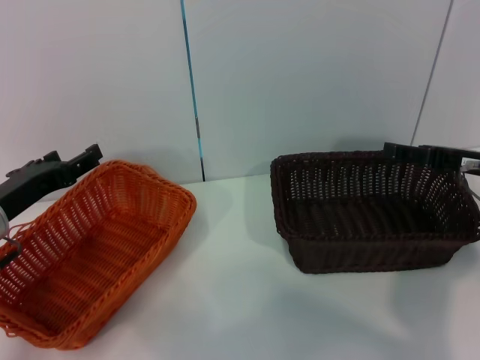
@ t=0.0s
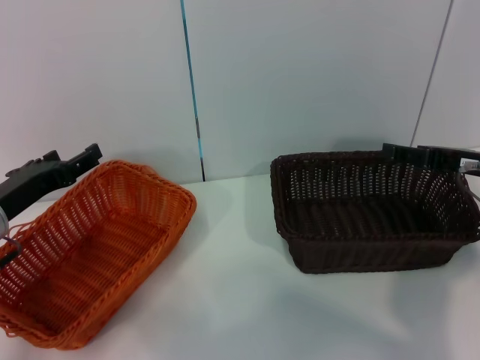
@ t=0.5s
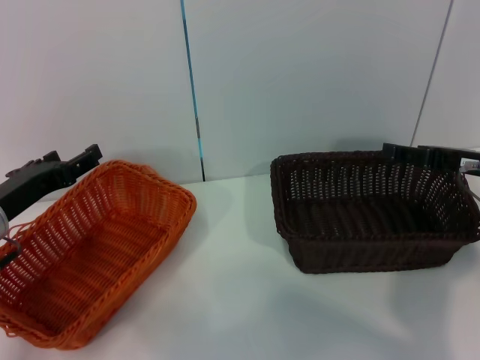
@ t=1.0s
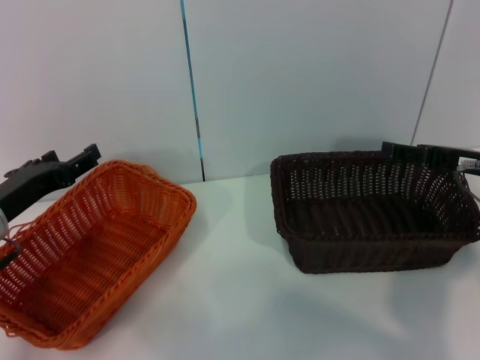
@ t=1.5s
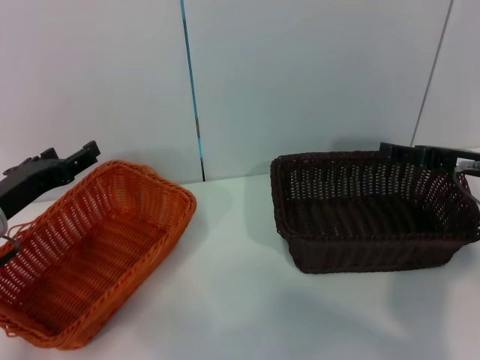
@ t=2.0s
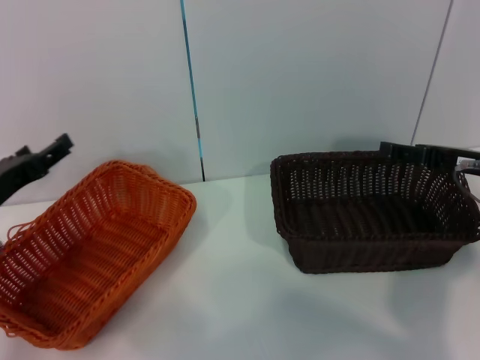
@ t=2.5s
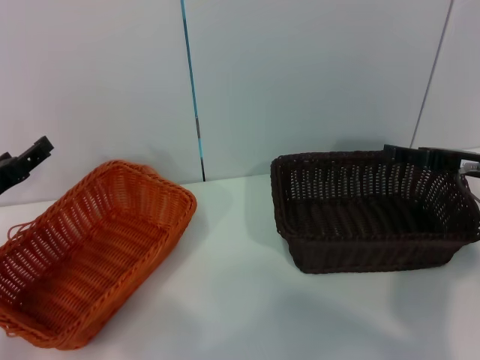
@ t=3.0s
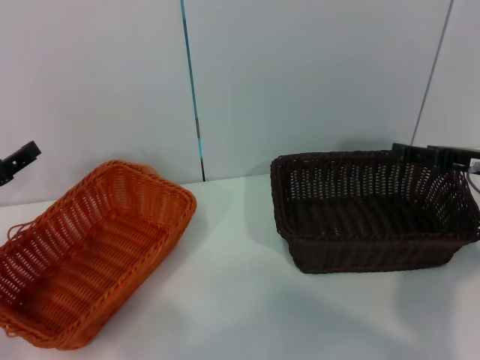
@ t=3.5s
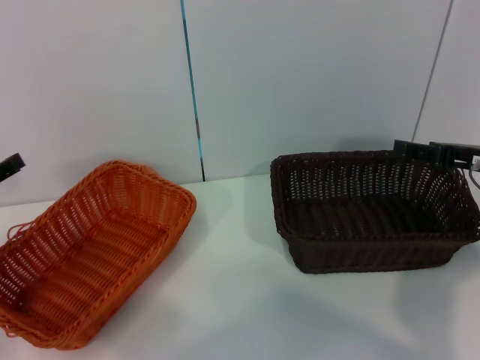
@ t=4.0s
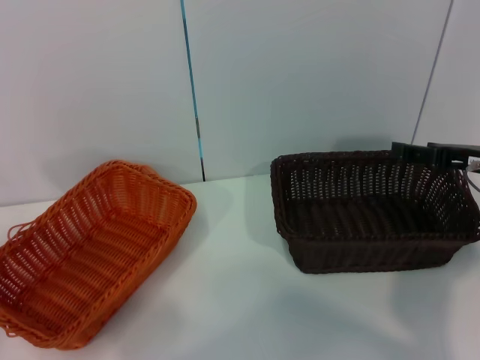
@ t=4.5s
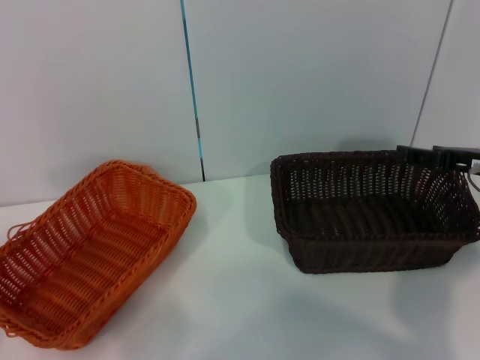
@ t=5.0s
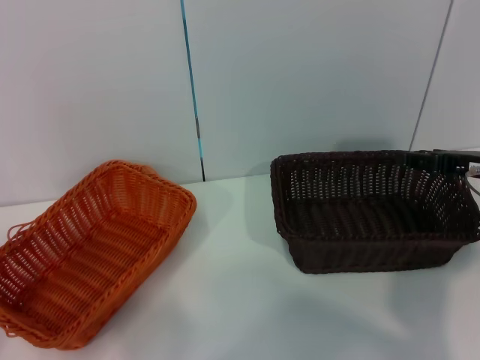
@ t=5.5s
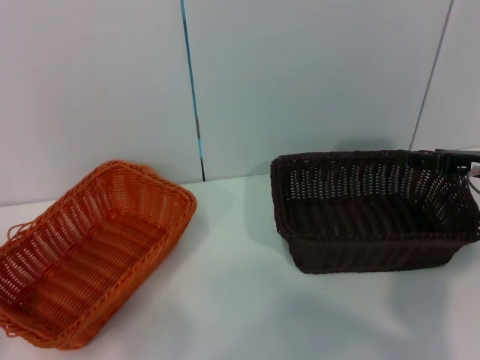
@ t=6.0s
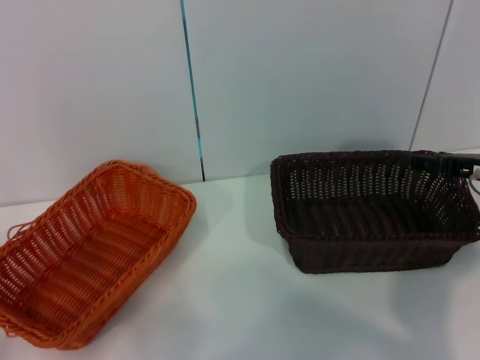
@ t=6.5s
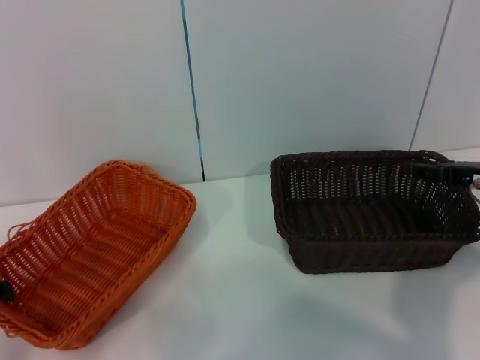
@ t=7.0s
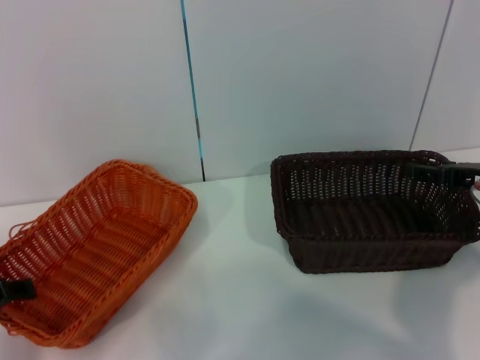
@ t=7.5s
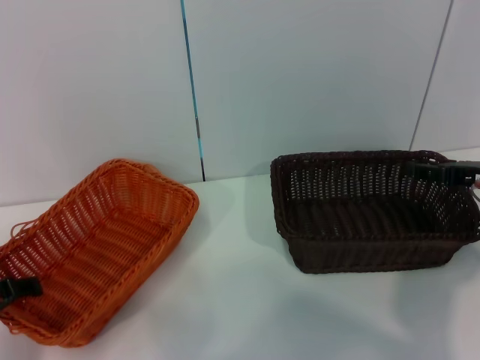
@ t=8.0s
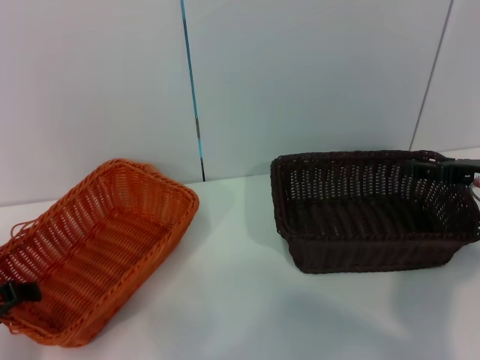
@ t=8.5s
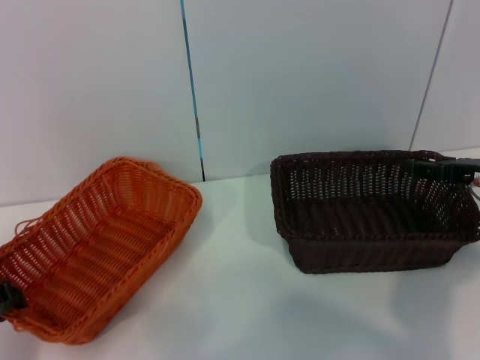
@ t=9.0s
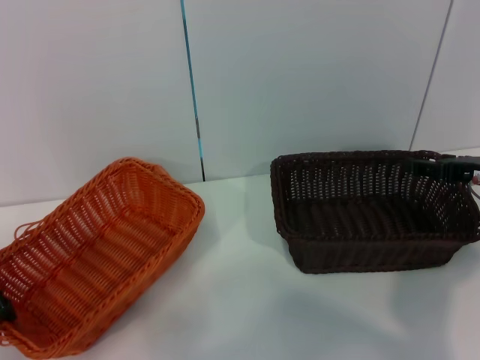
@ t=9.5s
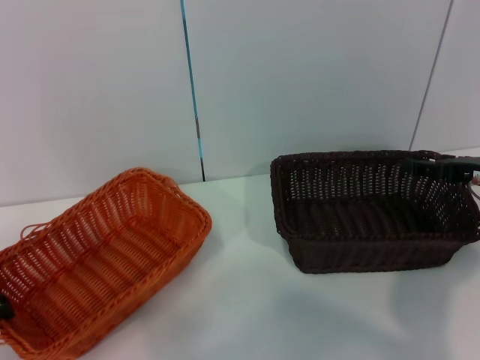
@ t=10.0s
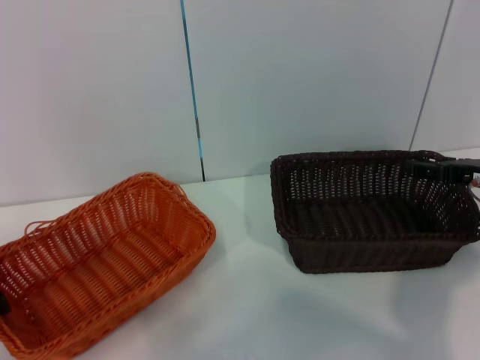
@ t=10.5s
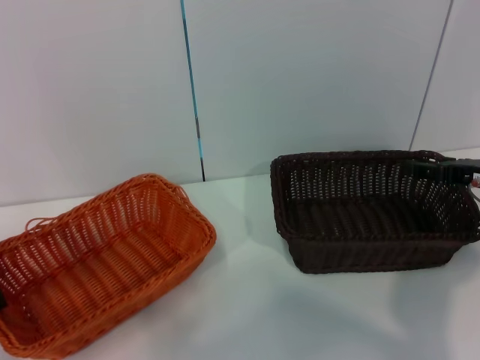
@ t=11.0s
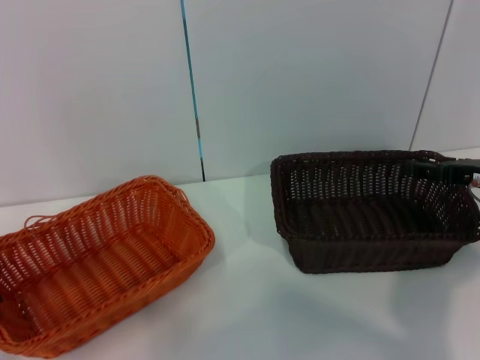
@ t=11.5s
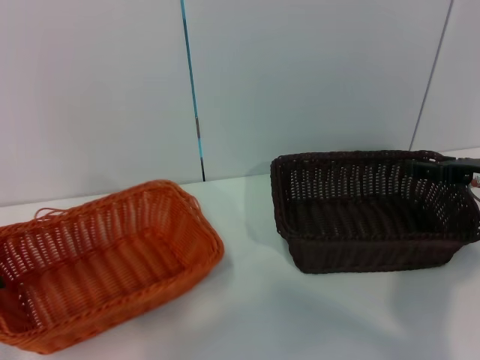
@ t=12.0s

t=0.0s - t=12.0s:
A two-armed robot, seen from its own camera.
t=0.0s - t=2.0s: Neither gripper changes place.
t=2.0s - t=4.0s: The left gripper moves to the left, approximately 5 cm.
t=6.0s - t=8.0s: The left gripper shifts about 5 cm to the right.
t=8.0s - t=10.0s: The left gripper closes.
t=10.0s - t=12.0s: There are only small adjustments of the grippers.

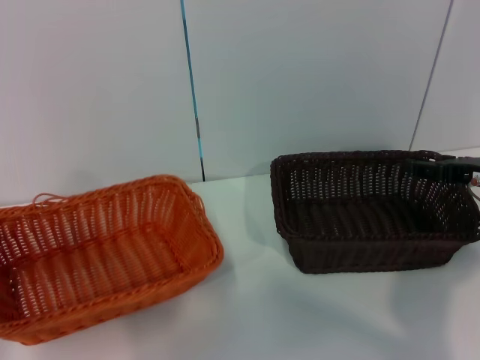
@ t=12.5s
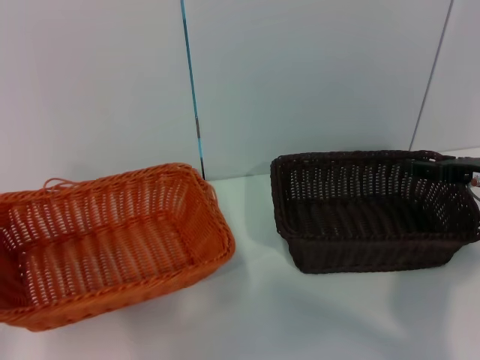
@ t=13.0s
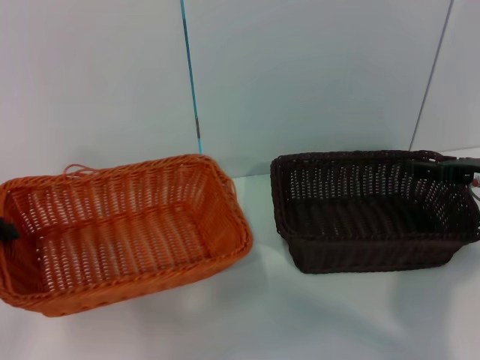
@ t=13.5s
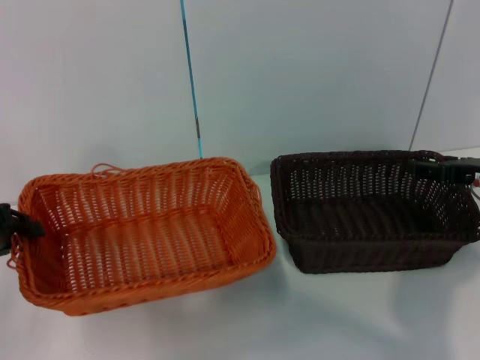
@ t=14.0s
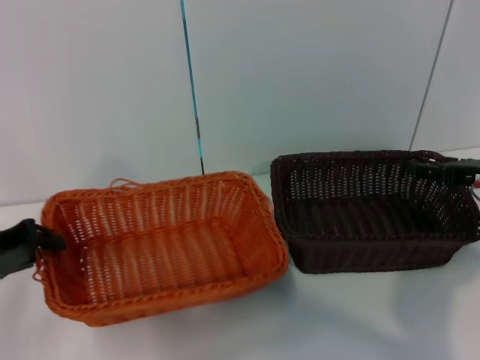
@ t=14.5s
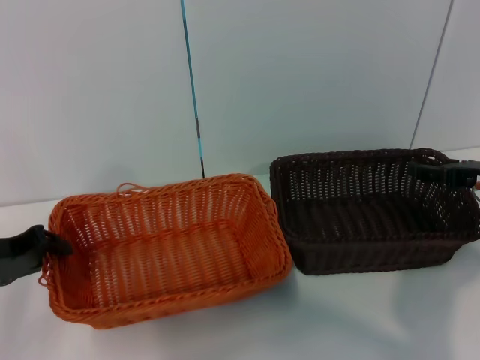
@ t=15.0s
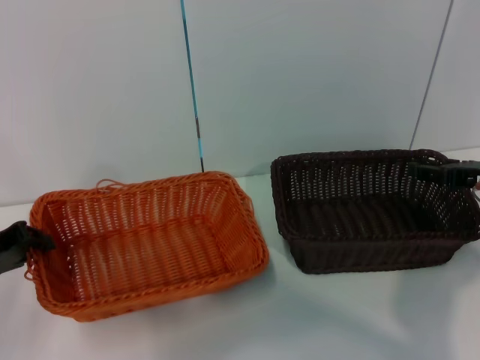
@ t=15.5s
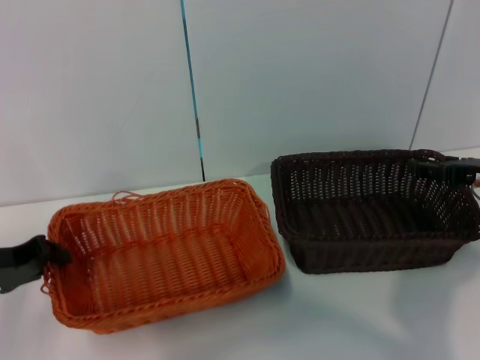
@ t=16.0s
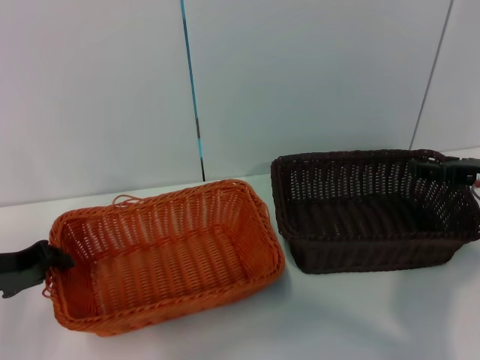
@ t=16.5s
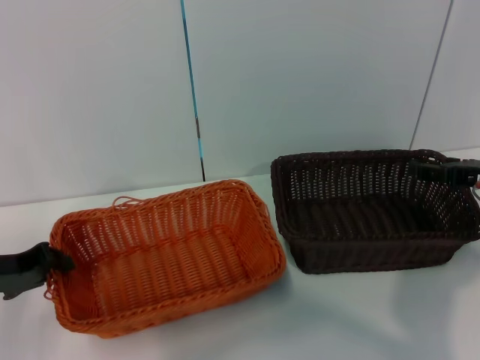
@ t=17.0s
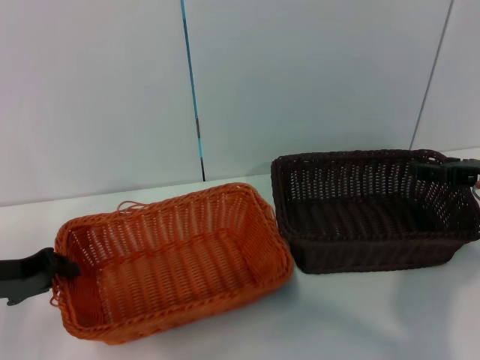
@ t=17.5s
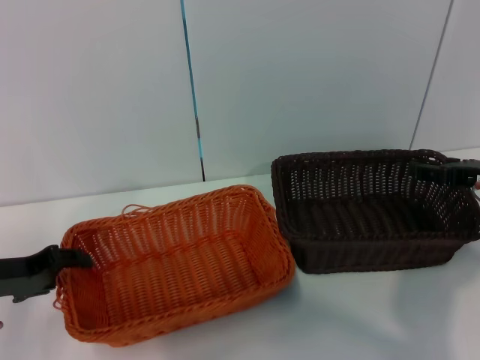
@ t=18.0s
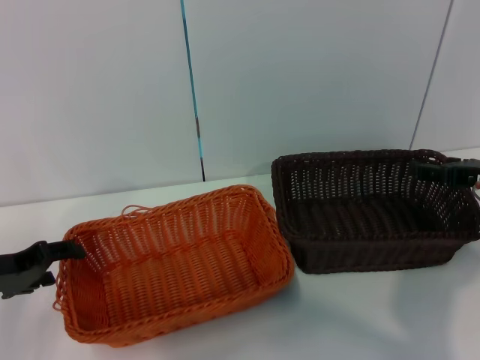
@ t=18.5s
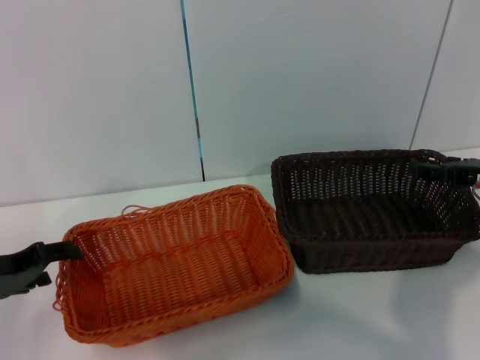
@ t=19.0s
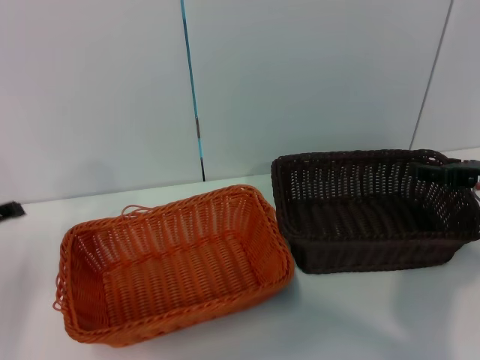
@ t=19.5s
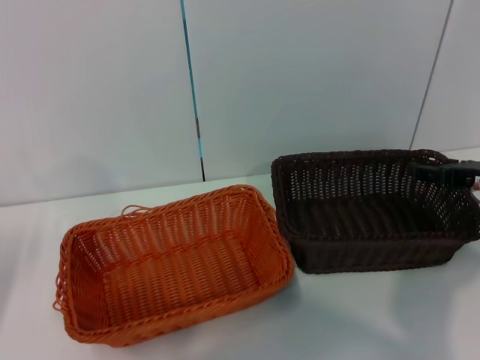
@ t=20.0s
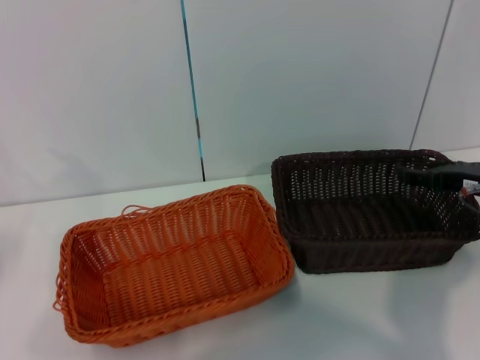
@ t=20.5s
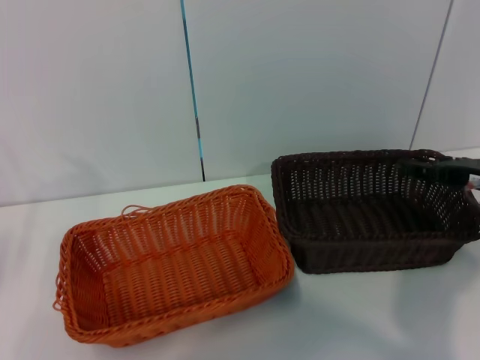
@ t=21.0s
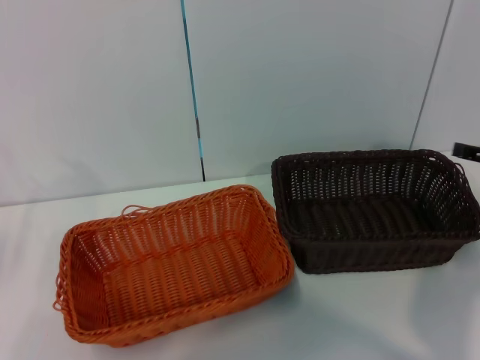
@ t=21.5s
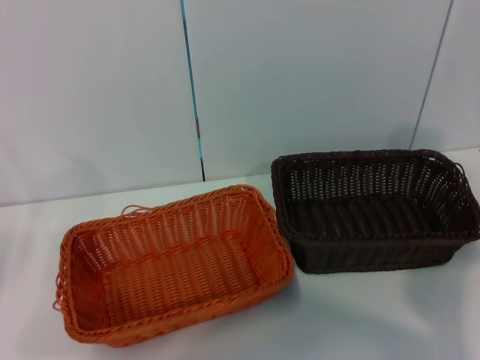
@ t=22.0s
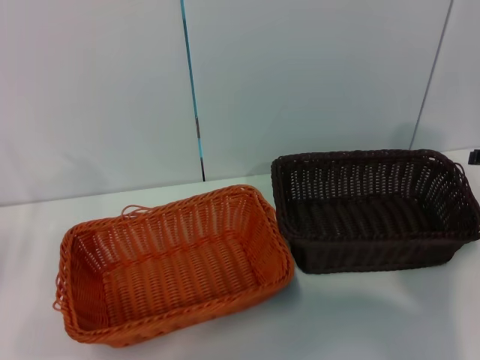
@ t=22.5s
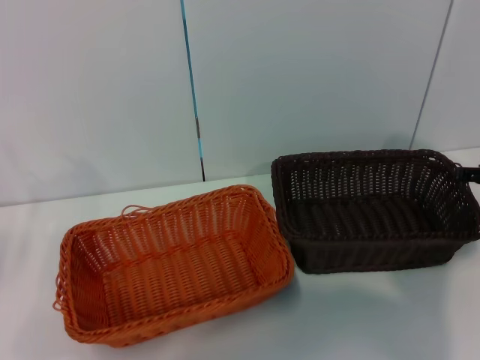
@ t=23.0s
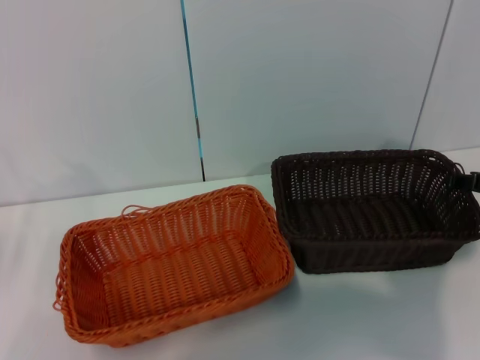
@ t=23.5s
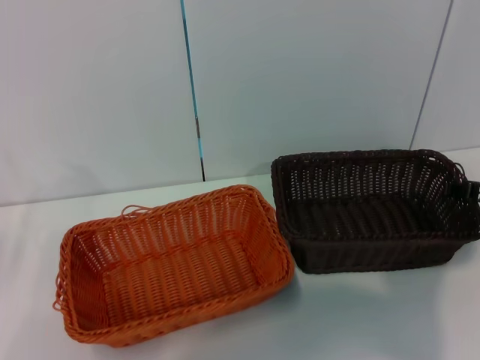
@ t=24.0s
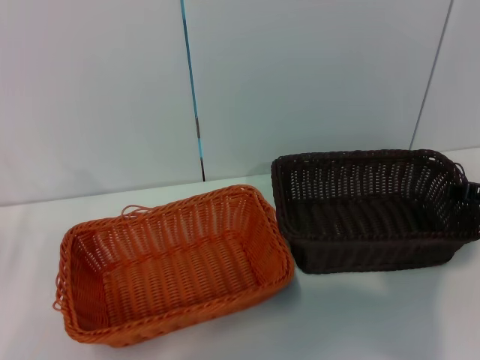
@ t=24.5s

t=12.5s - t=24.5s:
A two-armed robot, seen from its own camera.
Step, t=12.5s - t=18.0s: Place the light basket in the center of view with the left gripper.
t=12.5s - t=14.5s: The left gripper travels to the right by some 5 cm.
t=14.5s - t=16.5s: The grippers make only small movements.
t=16.5s - t=18.5s: The left gripper opens up.
t=18.5s - t=20.5s: The left gripper shifts roughly 5 cm to the left.
t=20.5s - t=22.5s: The right gripper is displaced to the right by some 5 cm.

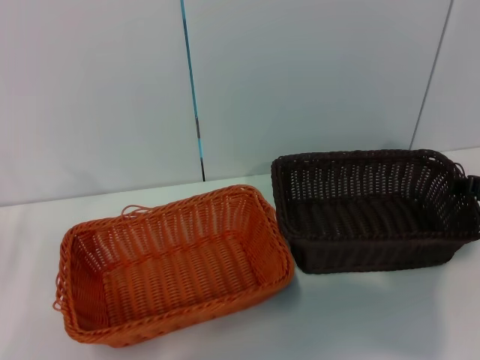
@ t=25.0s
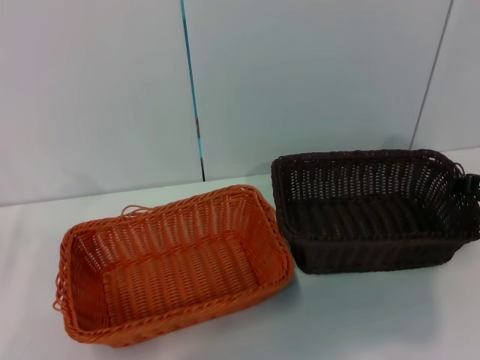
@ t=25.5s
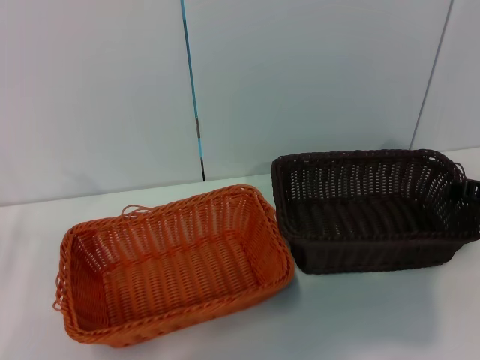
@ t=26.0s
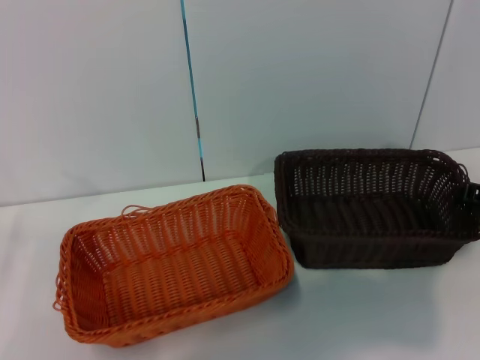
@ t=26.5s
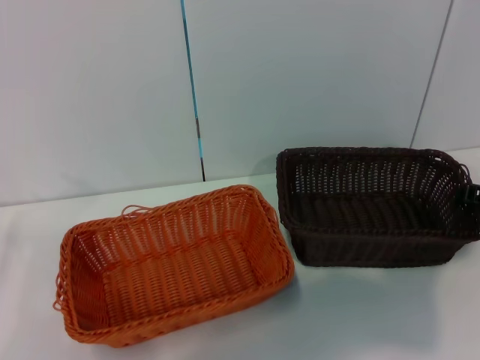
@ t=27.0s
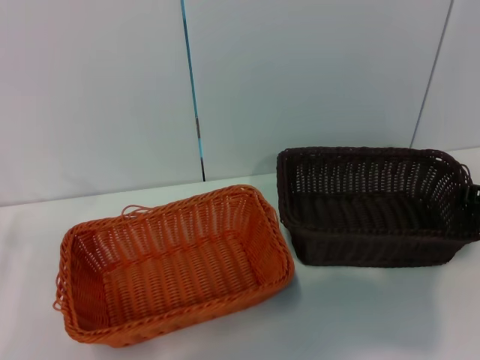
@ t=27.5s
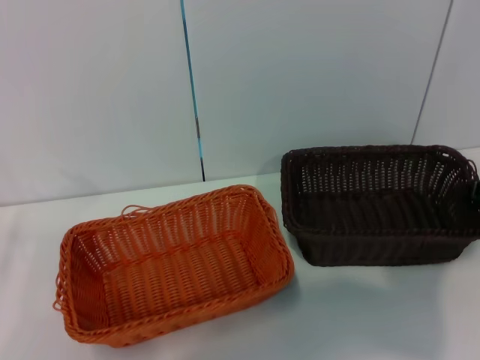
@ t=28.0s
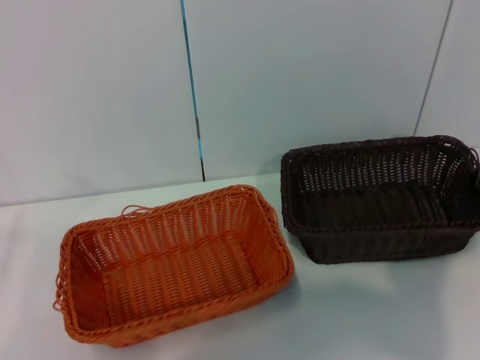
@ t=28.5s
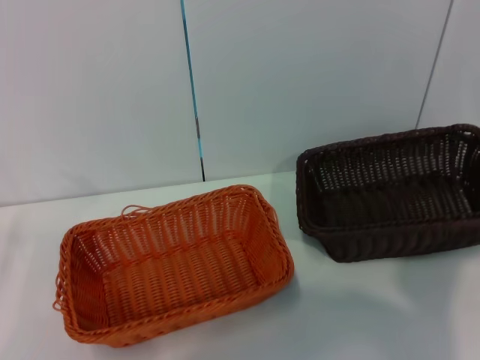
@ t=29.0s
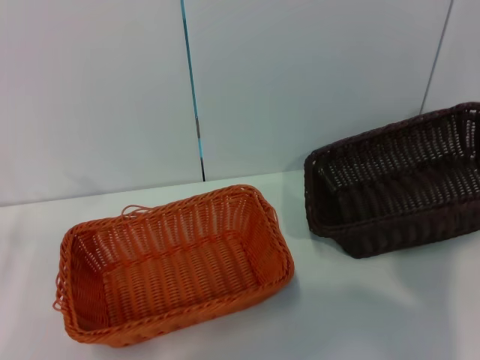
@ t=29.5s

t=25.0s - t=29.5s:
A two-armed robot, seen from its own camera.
t=25.0s - t=27.0s: The right gripper closes up.
t=27.0s - t=29.5s: The right gripper travels upward by about 10 cm.
